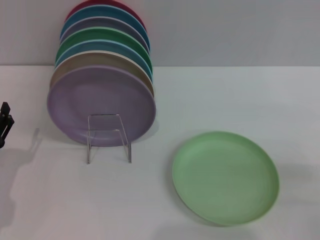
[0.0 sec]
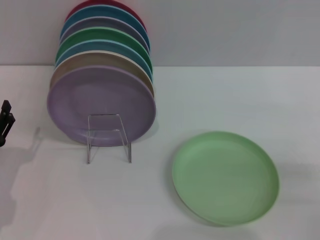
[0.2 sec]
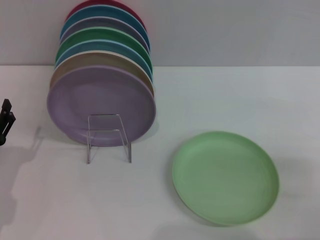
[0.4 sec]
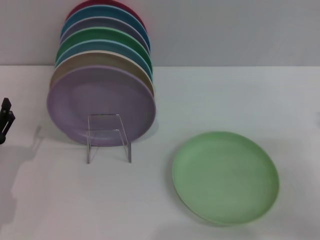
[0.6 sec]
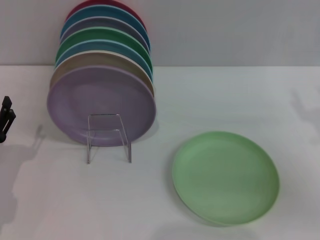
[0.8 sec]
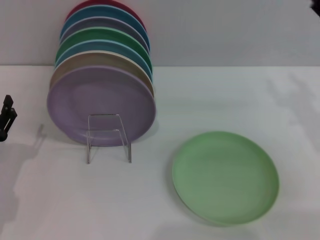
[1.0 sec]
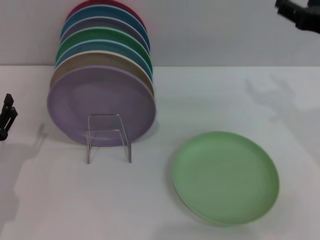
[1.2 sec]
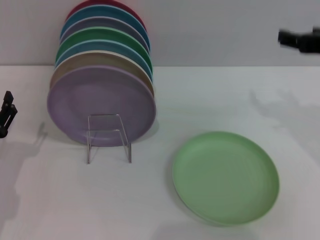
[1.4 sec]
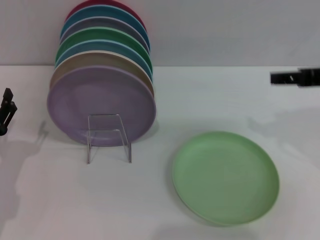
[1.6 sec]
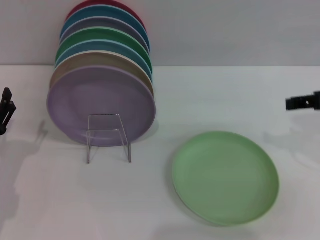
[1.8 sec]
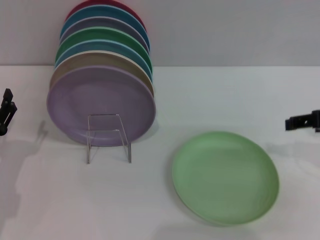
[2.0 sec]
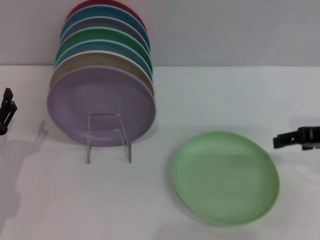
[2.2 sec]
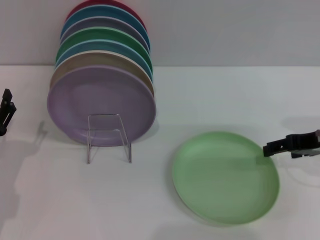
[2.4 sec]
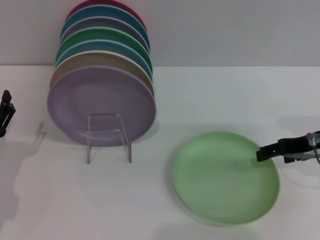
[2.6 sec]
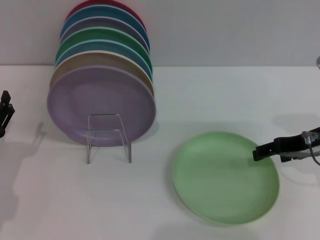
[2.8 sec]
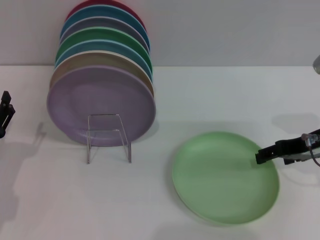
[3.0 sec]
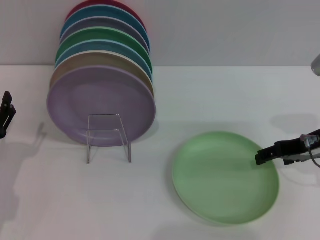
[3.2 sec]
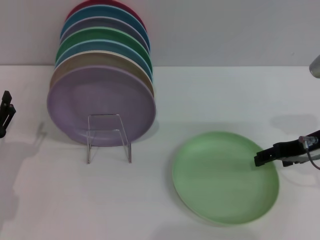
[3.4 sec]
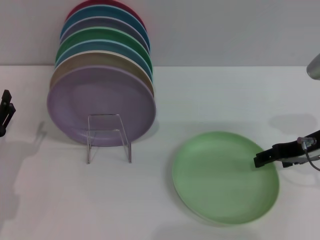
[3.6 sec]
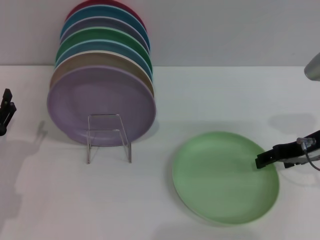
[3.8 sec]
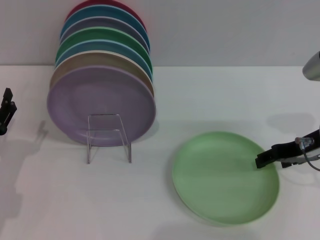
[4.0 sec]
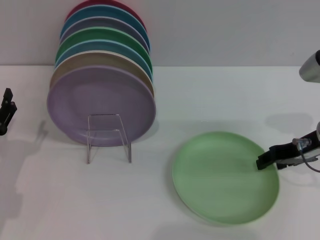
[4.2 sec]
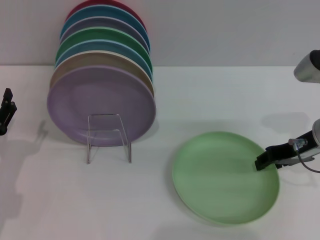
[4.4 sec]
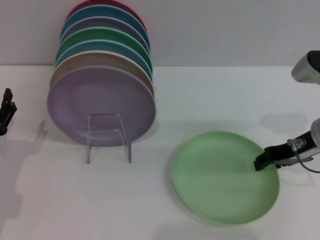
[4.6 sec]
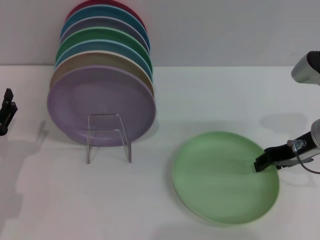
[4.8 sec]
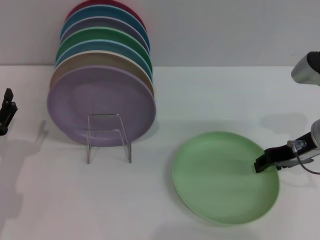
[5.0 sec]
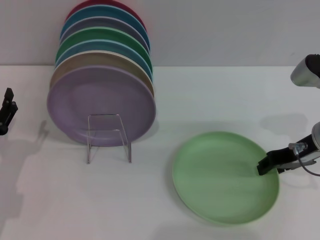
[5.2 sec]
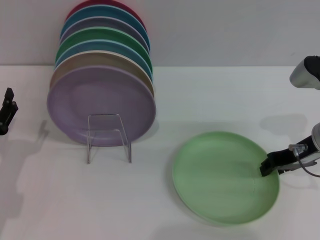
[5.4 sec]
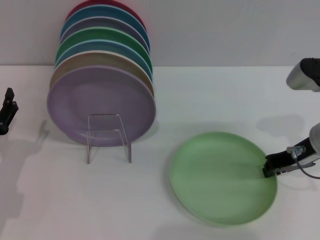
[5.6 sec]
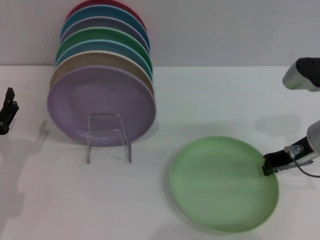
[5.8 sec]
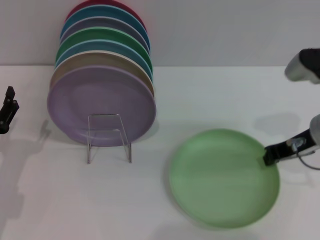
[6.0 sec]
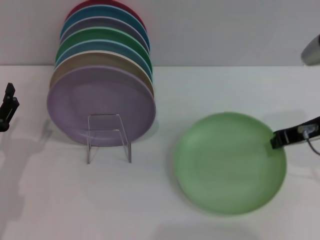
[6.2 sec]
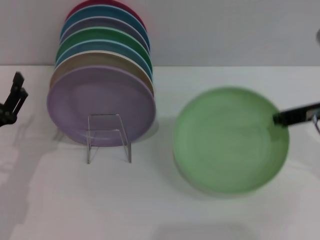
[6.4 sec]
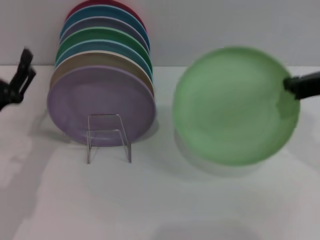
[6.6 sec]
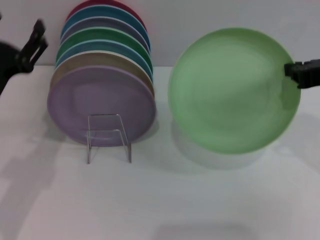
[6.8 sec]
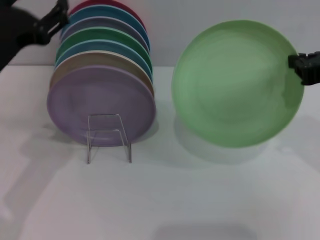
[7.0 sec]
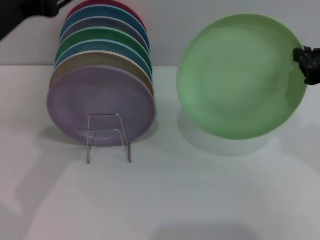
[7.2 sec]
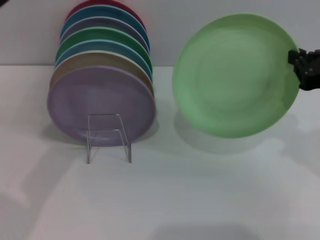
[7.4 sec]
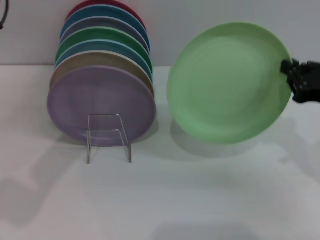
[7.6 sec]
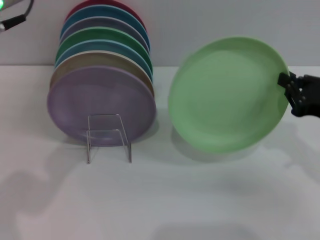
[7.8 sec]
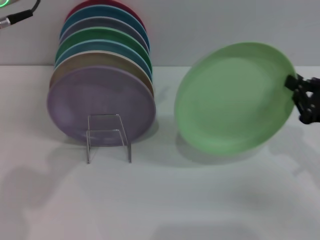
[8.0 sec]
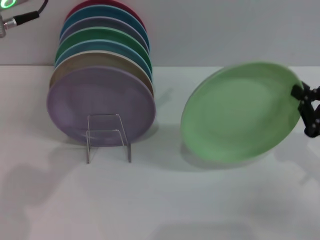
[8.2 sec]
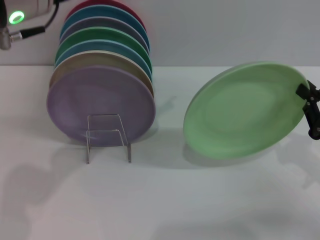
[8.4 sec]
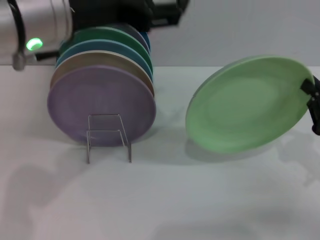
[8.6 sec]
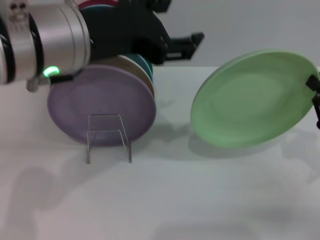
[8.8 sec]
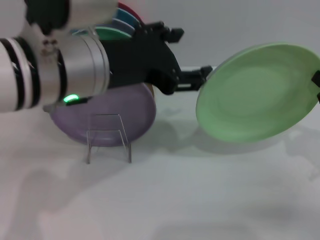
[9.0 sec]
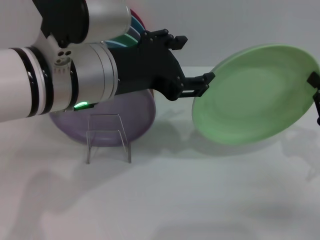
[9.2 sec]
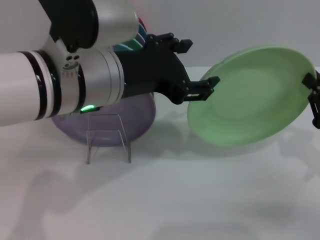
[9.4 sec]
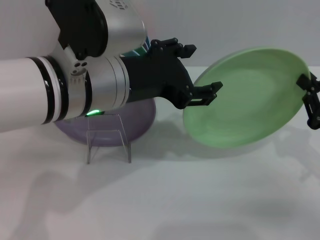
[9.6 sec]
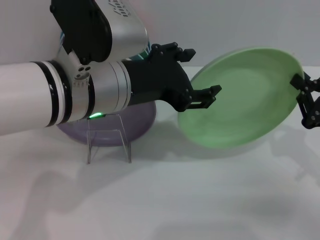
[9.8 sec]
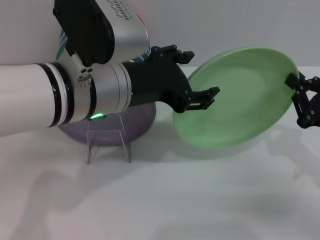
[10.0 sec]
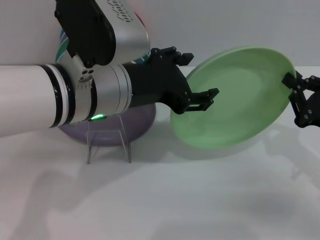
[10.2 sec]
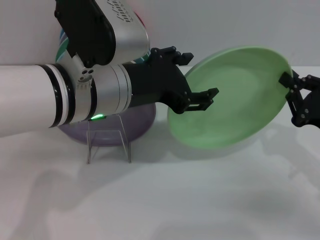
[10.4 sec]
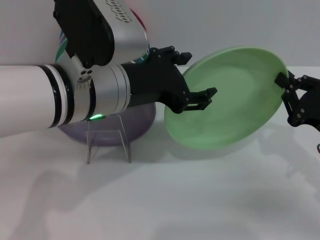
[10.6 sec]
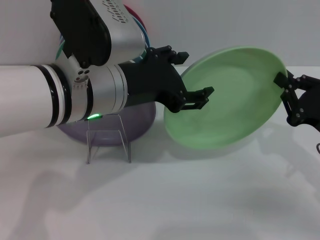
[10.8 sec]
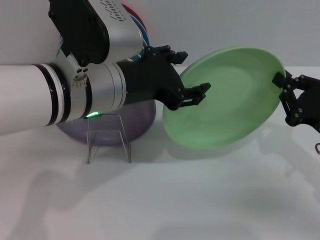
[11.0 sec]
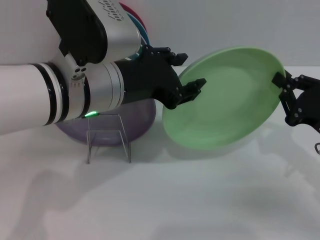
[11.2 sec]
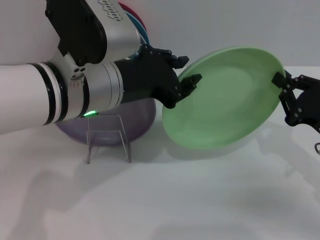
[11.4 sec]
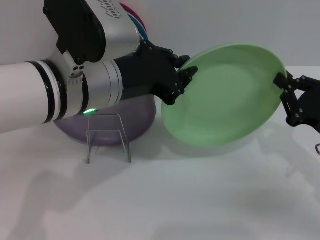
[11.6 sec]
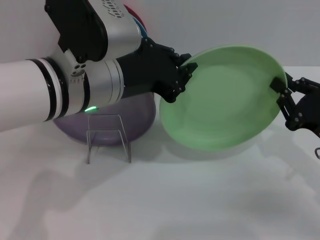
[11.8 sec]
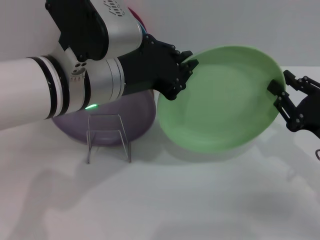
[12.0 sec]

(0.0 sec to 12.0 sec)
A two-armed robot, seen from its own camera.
Task of the whole recording: Grip the plate with one hand, pass it to the other, then set it on the shelf.
Step, 0.0 sec - 6.8 sec: Pick up the plate with the right gripper.
0.0 sec - 1.6 sec: The right gripper moves upward and forward, about 20 cm.
1.6 sec - 3.0 sec: The right gripper moves downward, roughly 10 cm.
3.0 sec - 4.4 sec: The grippers make only small movements.
4.4 sec - 6.0 sec: The right gripper closes up.
6.0 sec - 7.6 sec: The left gripper travels upward by about 25 cm. The right gripper goes about 5 cm backward, and moves roughly 10 cm upward and comes back.
7.6 sec - 9.0 sec: The left gripper heads to the right and downward, covering some 10 cm. Meanwhile the right gripper goes about 10 cm downward and to the right.
10.4 sec - 12.0 sec: The left gripper closes up.

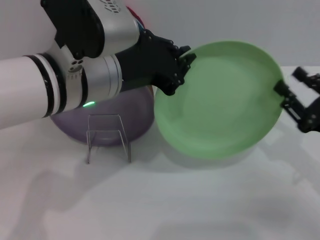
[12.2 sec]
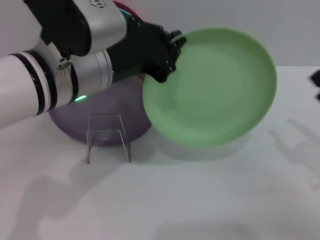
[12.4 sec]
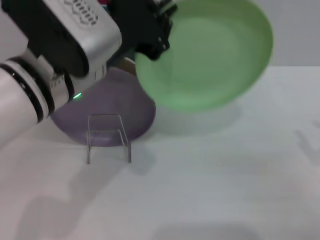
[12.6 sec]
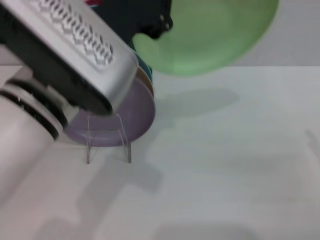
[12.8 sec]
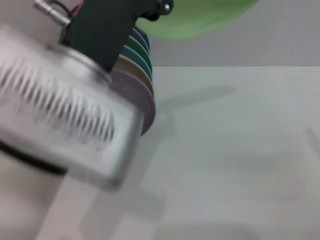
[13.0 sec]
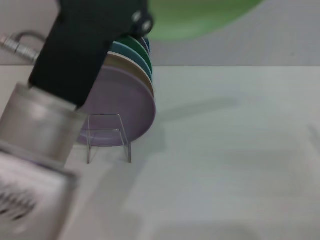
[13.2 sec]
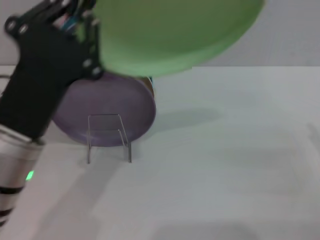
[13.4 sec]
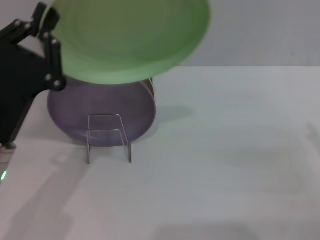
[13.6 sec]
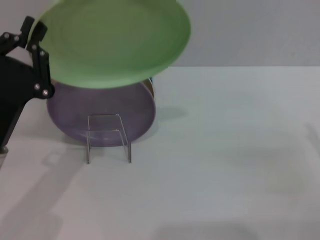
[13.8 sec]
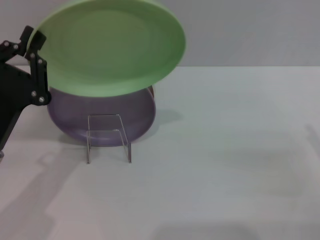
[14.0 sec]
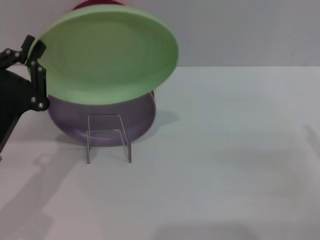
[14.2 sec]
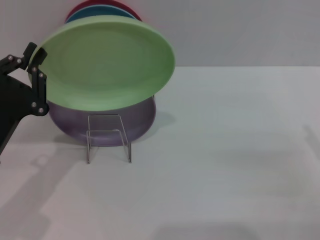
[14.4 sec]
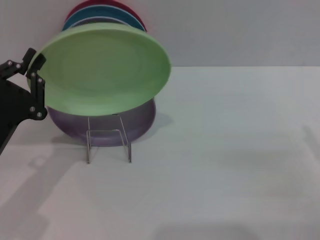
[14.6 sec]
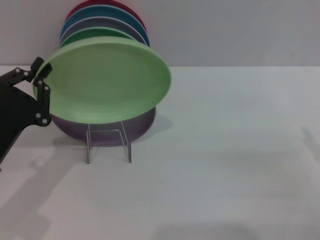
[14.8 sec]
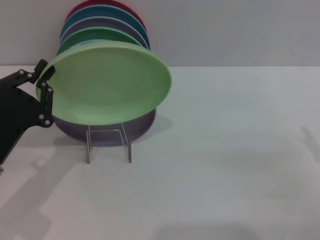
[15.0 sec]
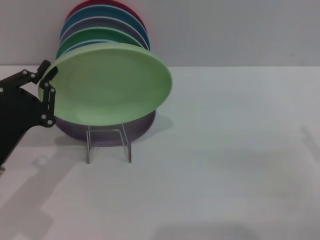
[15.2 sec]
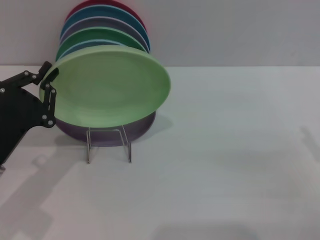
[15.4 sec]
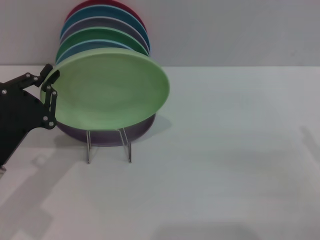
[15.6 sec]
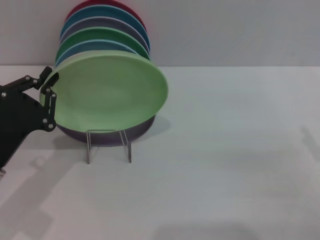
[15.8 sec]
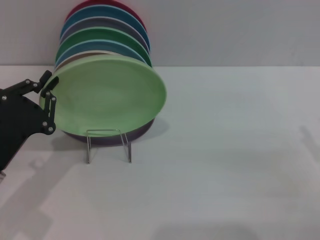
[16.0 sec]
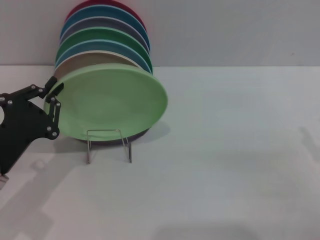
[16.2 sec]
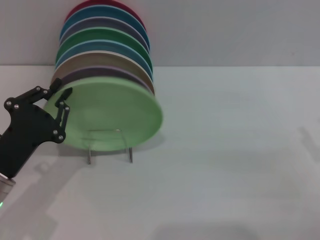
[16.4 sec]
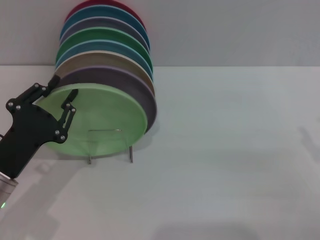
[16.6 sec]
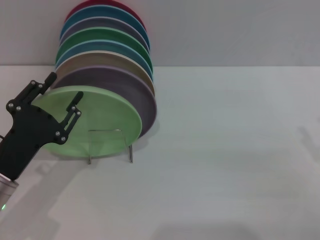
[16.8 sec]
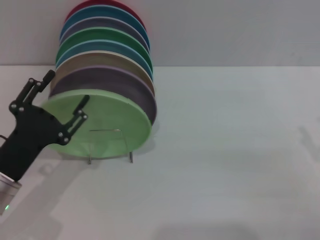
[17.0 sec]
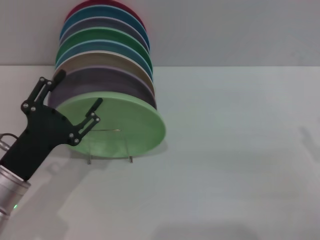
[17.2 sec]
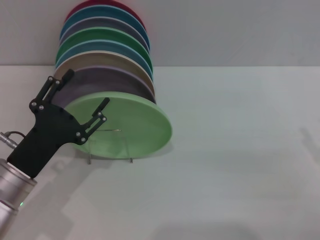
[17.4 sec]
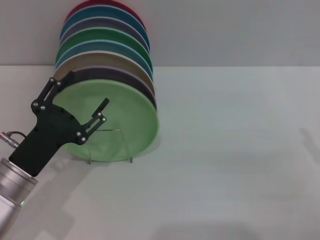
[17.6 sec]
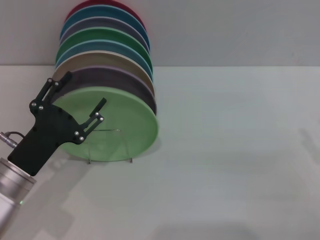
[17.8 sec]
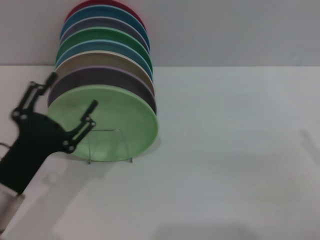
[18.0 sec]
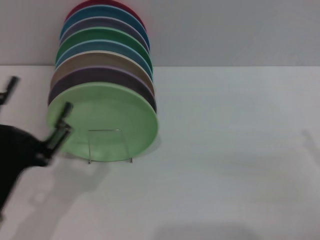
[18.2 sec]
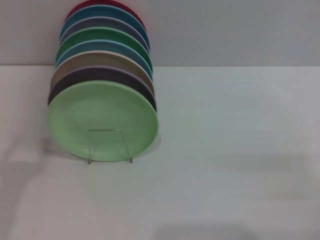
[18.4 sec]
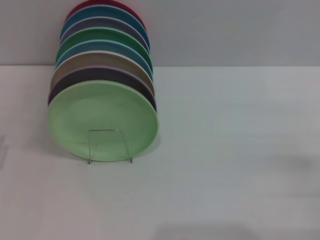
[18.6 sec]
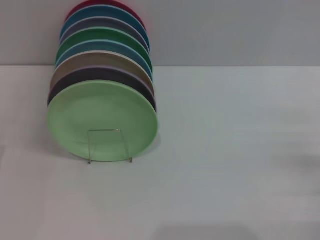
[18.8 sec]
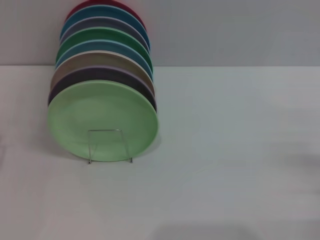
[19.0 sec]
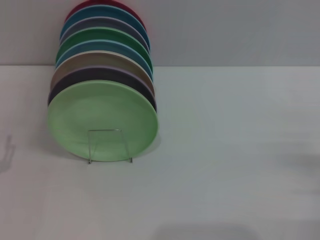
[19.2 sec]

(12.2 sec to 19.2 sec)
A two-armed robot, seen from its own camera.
Task of the whole recording: Grip the plate with one hand, pass it to the other, then set it on the shelf.
Step, 12.6 sec - 18.0 sec: Place the plate on the shelf with the left gripper.
12.2 sec - 13.6 sec: The left gripper heads to the left, downward and backward, covering approximately 15 cm; the right gripper moves to the right, some 5 cm.
13.6 sec - 15.0 sec: The left gripper moves downward, roughly 5 cm.
15.0 sec - 16.4 sec: The grippers stay close to where they were, moving slightly.
16.4 sec - 17.8 sec: The left gripper opens up.
17.8 sec - 19.2 sec: The right gripper ends up approximately 5 cm from where it was, while the left gripper heads to the left, covering about 10 cm.
